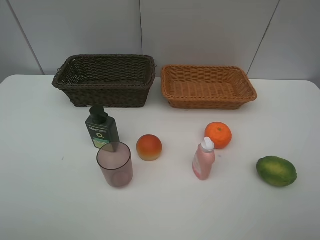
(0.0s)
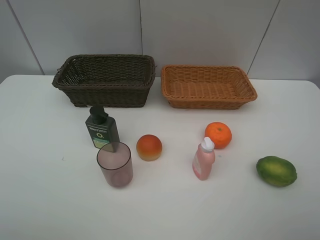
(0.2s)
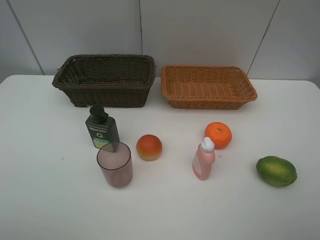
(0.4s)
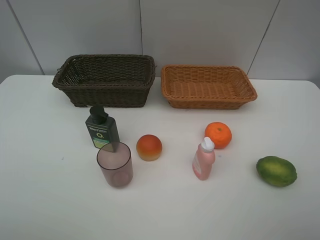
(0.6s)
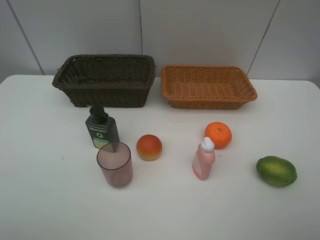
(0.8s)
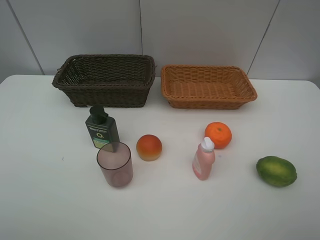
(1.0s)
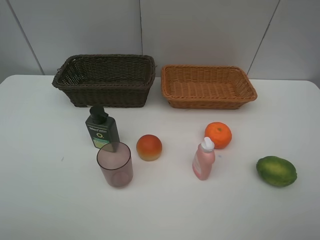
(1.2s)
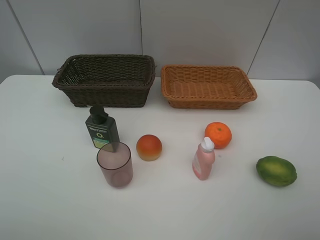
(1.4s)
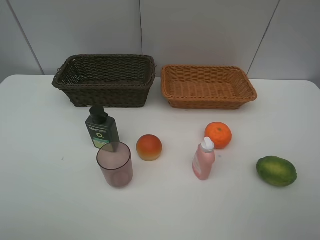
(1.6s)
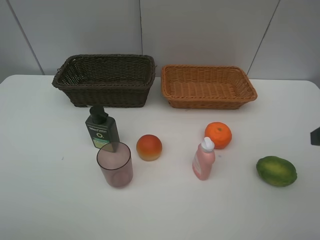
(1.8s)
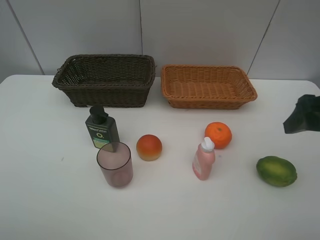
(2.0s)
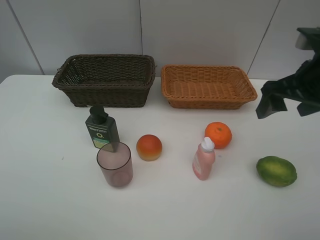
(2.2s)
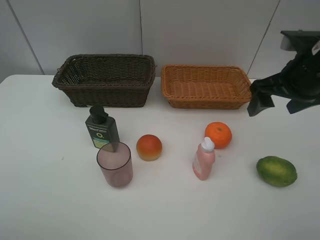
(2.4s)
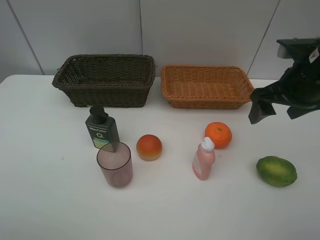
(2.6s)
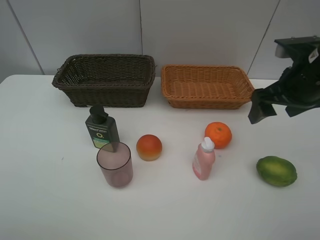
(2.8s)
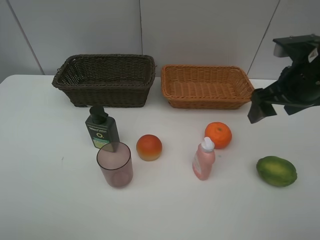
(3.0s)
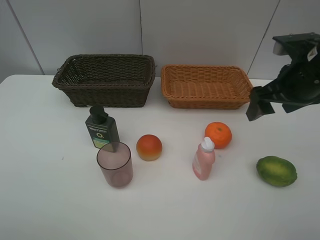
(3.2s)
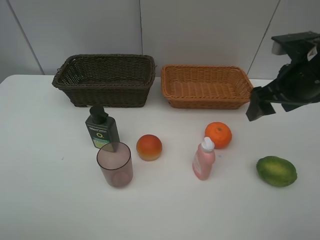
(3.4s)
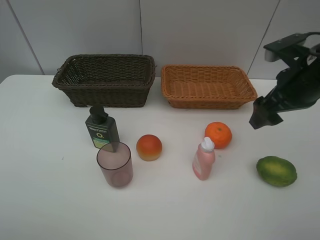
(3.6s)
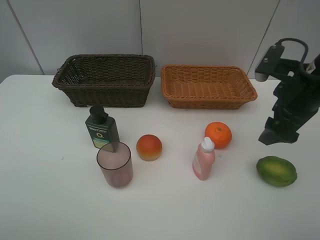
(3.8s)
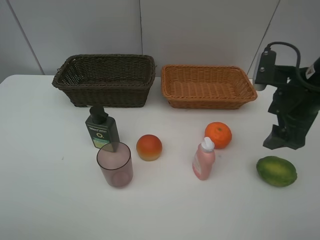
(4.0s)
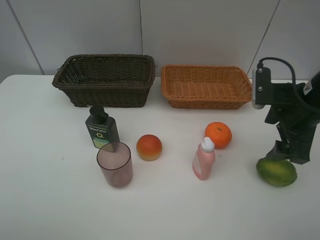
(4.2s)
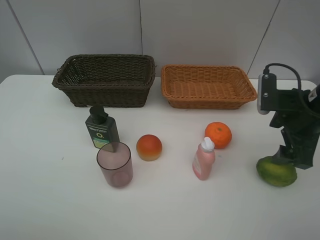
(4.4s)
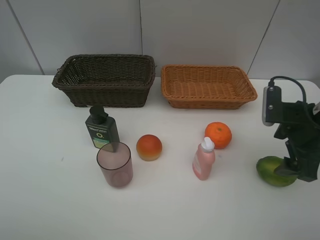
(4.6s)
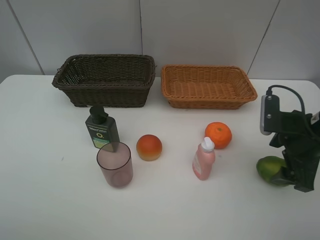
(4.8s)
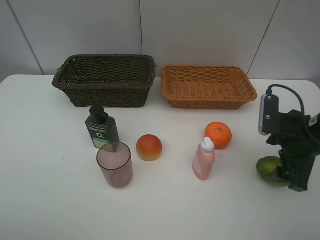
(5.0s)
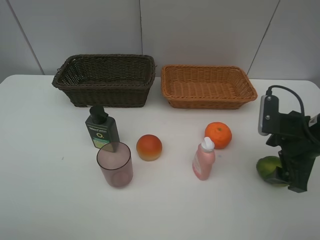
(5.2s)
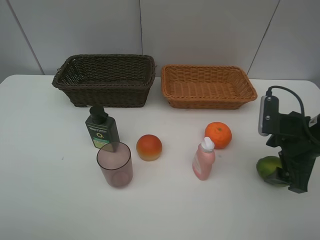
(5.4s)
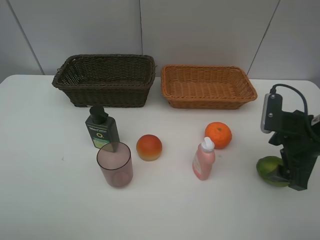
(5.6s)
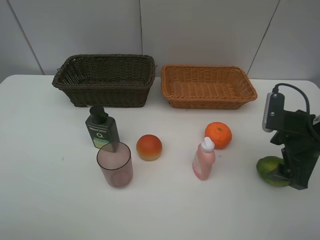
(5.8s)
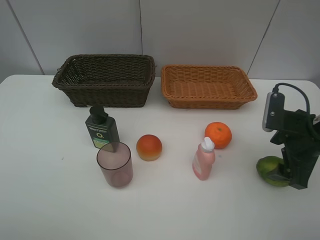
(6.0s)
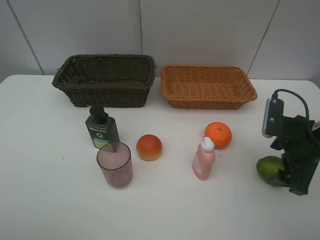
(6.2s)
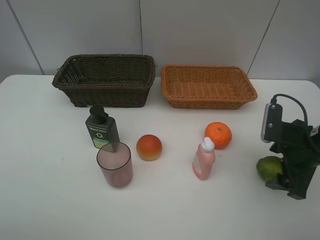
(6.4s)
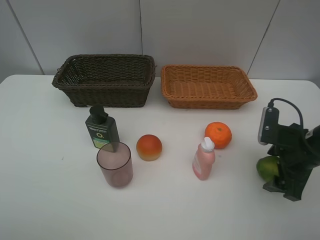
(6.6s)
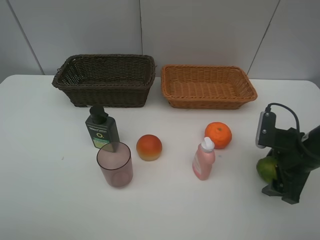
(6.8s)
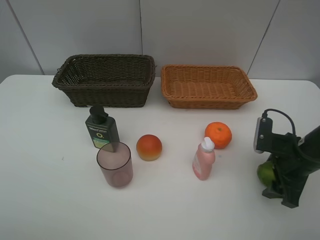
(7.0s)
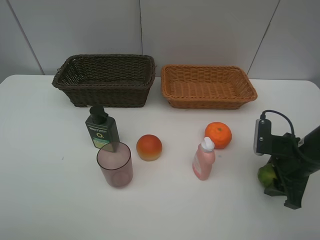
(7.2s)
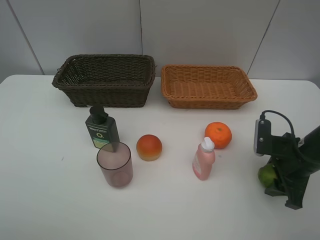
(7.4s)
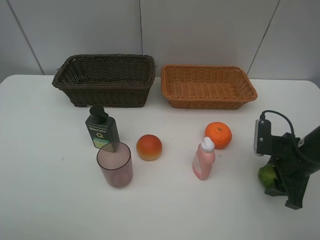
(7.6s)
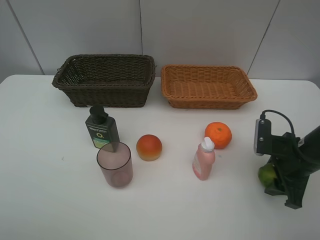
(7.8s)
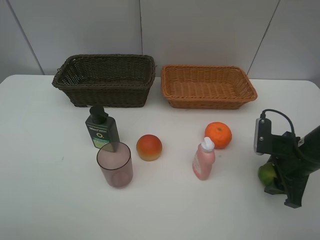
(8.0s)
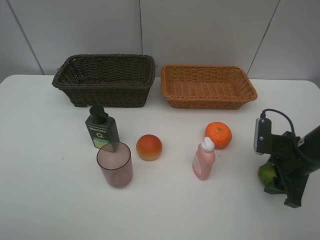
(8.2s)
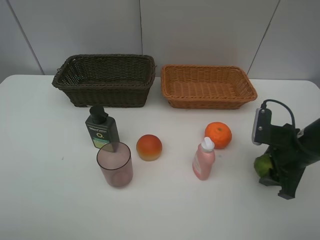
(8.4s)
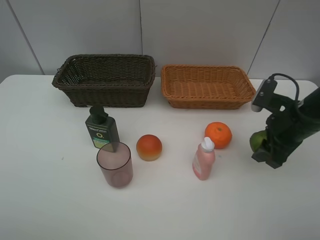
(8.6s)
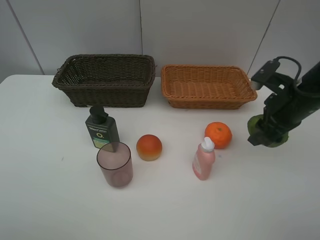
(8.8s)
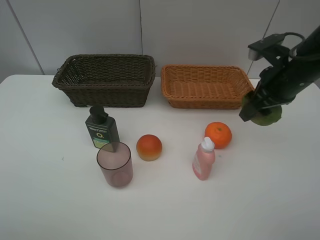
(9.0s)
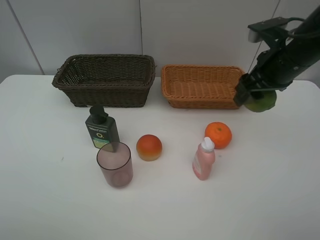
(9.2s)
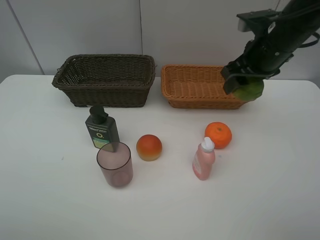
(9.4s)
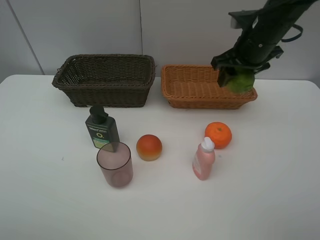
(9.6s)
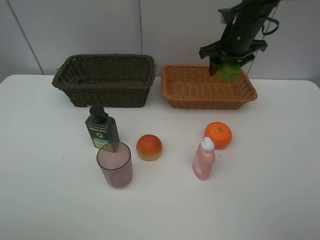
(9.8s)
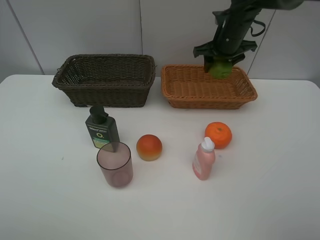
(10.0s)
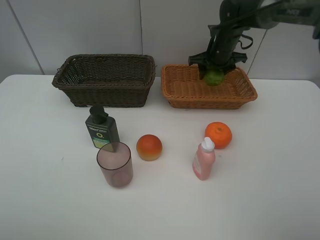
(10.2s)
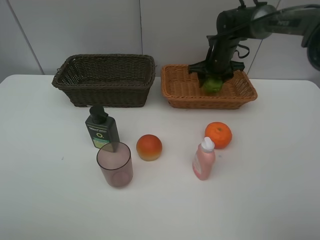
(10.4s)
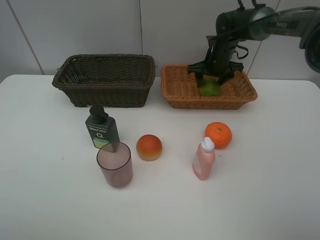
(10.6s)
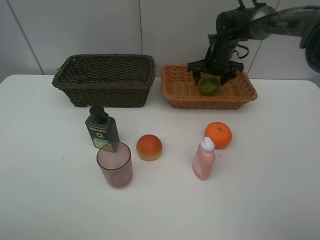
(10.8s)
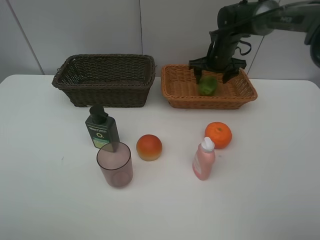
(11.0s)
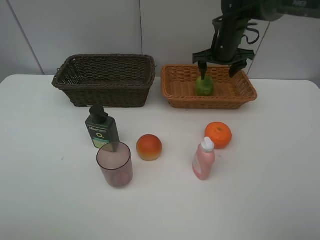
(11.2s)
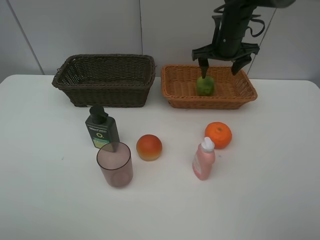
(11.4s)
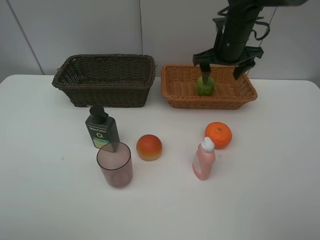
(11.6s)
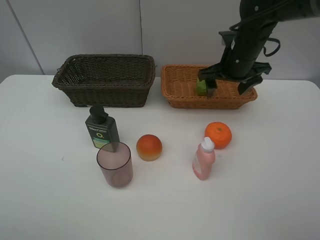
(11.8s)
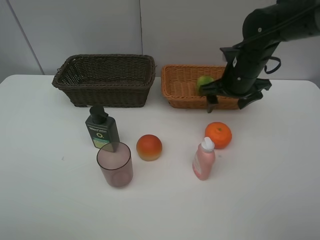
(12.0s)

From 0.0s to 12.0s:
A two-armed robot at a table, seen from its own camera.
Task of the whole recording: place multiple objects separately in different baskets.
From 1.6s to 3.0s: The right gripper heads forward, covering about 20 cm.
From 3.0s to 4.4s: The right gripper is displaced downward by about 5 cm.
From 4.4s to 6.0s: The grippers move only a little.
From 6.0s to 7.6s: The right gripper travels downward by approximately 5 cm, and closes up.
From 7.6s to 9.0s: The right gripper shifts about 15 cm upward and forward.
From 9.0s to 10.4s: The right gripper heads forward and downward, covering some 25 cm.
From 10.4s to 12.0s: The right gripper travels backward by approximately 15 cm, and opens.

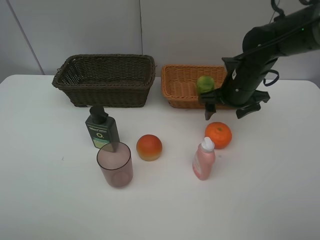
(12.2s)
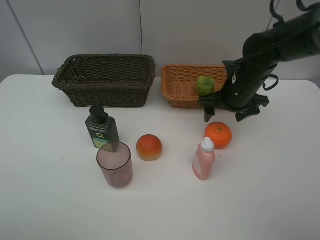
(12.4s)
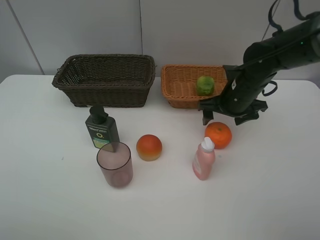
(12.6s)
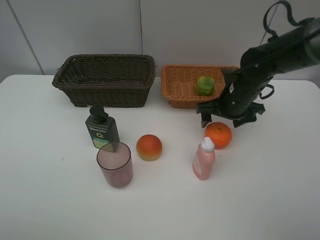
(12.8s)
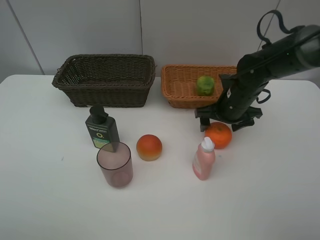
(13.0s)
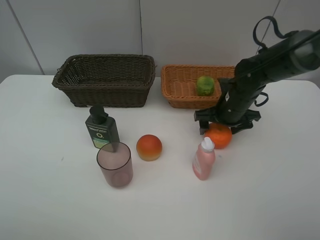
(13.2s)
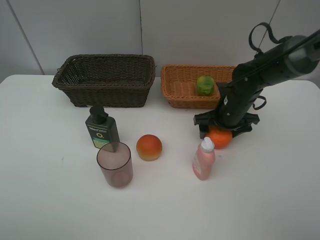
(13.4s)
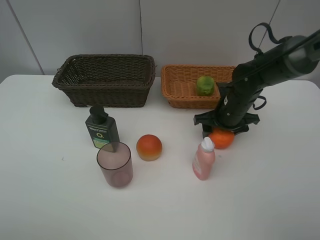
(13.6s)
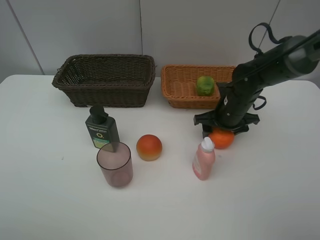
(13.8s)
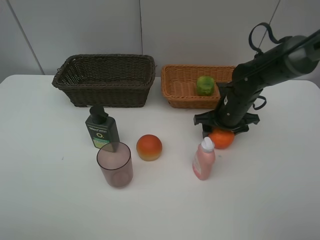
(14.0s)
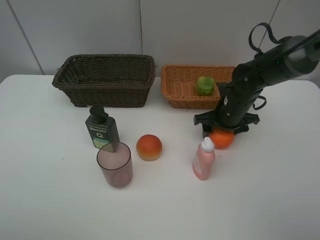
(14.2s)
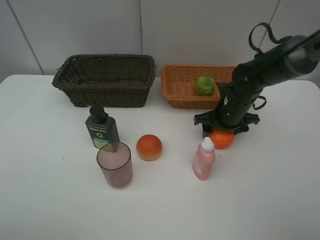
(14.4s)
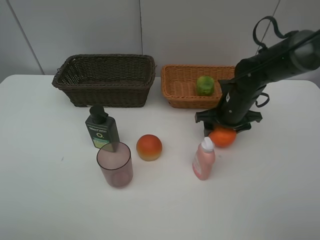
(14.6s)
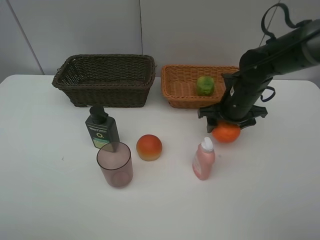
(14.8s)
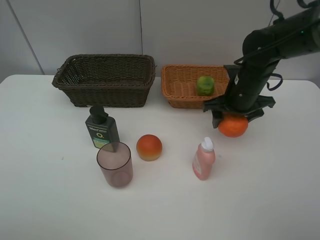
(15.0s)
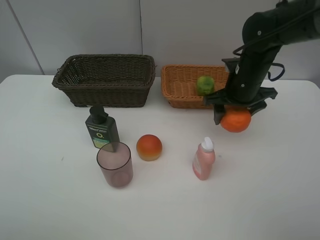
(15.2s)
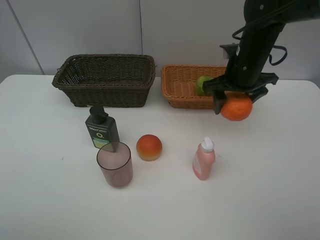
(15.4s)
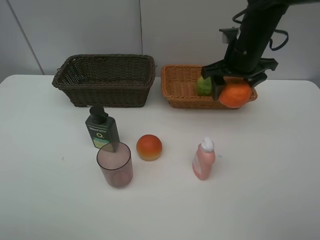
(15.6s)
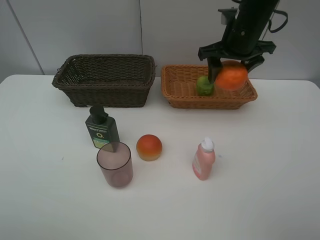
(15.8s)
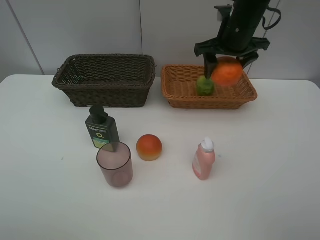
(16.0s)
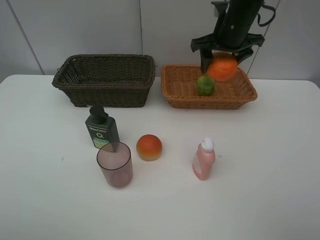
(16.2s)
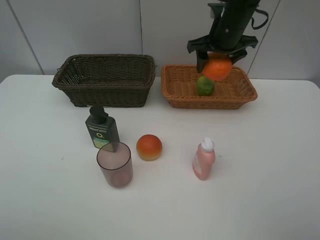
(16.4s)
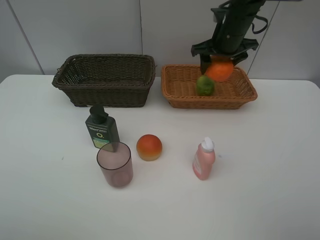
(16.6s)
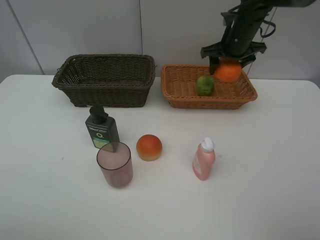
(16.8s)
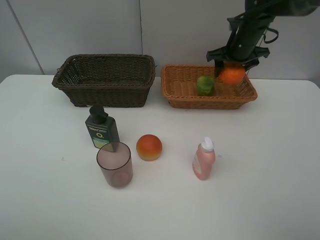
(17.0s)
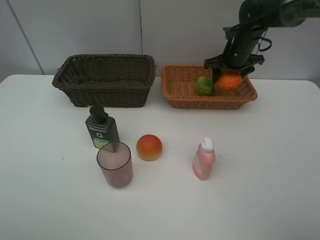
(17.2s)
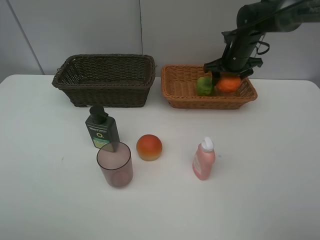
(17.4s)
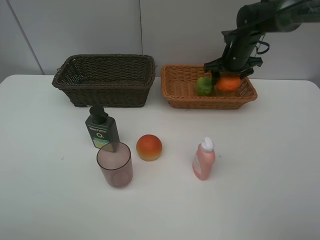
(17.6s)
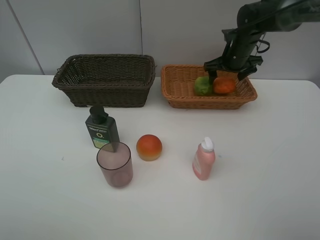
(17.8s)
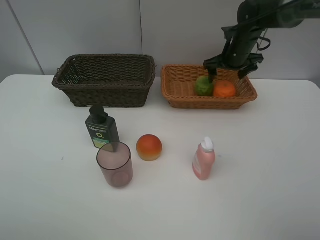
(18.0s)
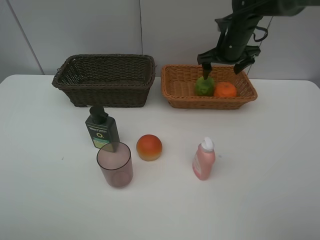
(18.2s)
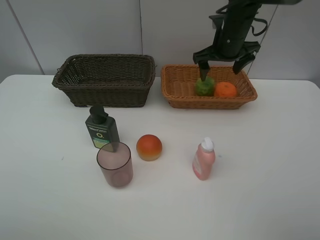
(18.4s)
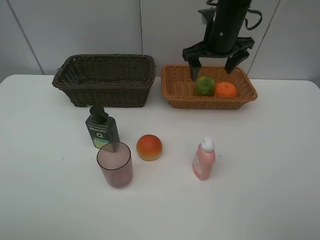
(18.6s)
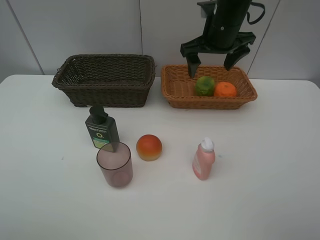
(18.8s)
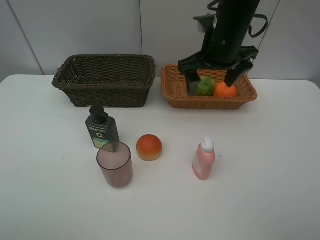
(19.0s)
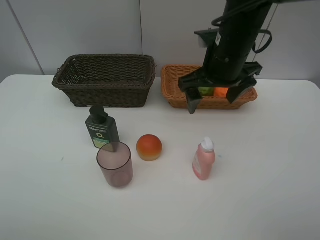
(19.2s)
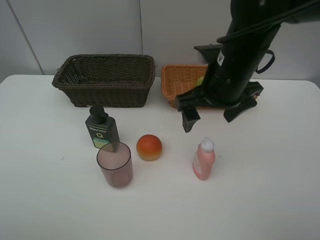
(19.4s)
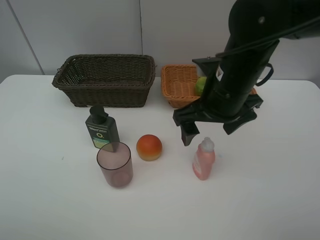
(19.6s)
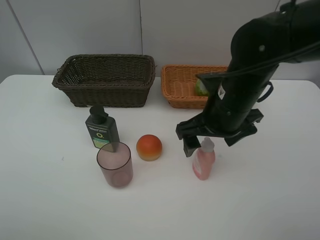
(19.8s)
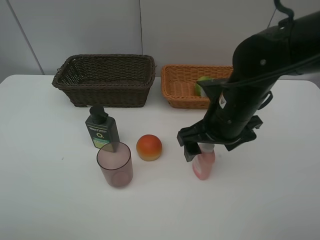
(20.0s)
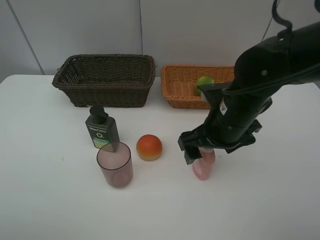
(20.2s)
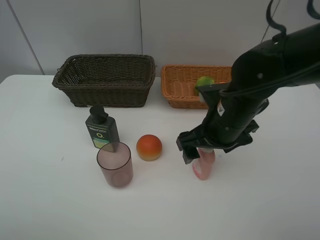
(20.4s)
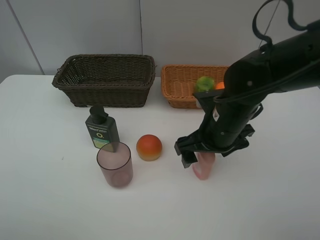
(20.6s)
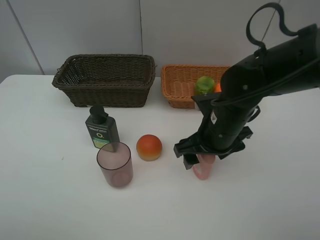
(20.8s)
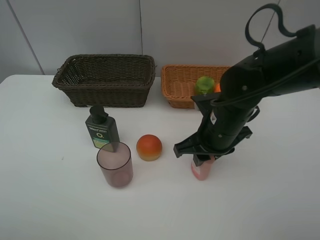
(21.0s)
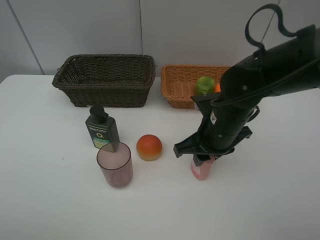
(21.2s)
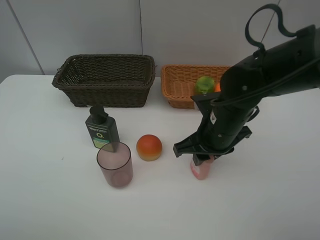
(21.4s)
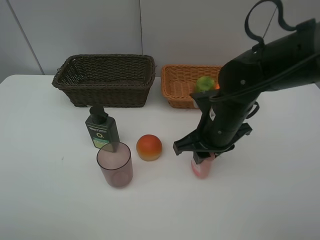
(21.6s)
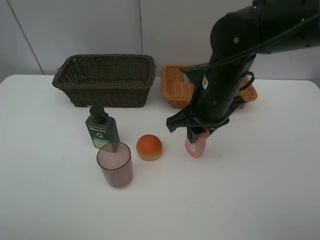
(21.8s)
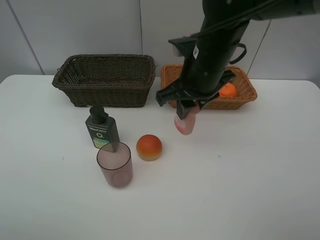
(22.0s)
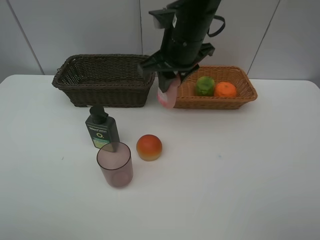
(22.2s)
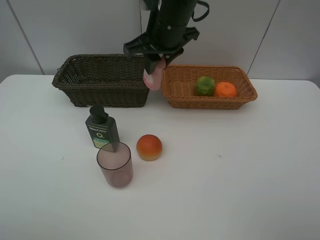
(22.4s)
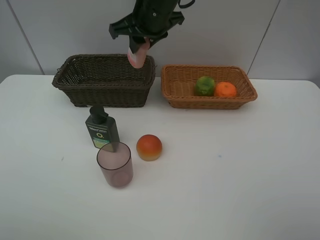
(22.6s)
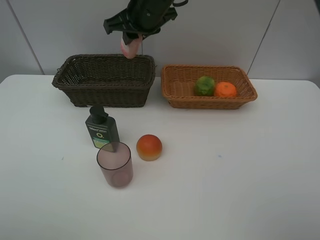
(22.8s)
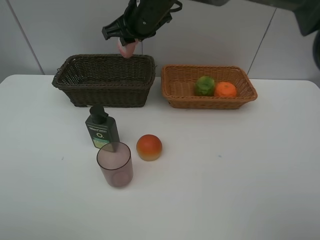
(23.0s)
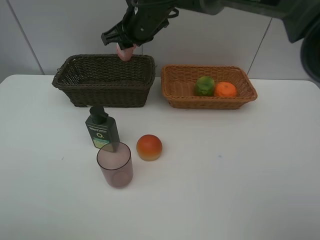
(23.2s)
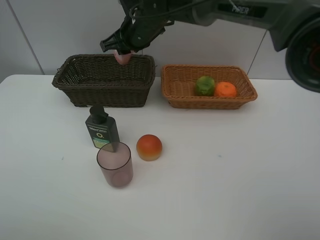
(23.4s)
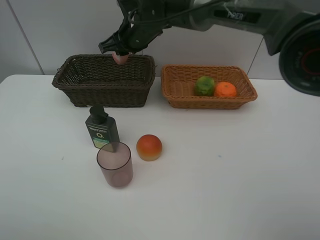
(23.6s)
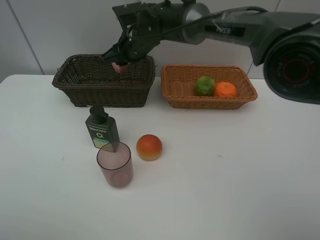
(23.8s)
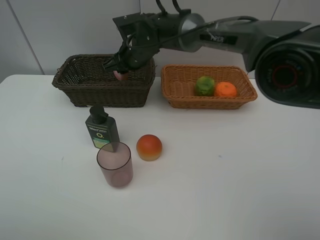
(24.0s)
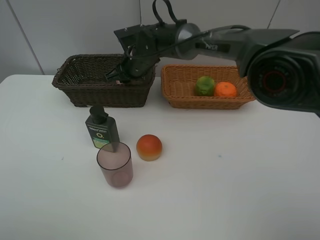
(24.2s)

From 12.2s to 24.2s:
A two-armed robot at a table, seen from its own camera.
Task of the whole recording: place multiple objects separately in different baskets.
From 12.2s to 13.8s: The right gripper moves downward, some 5 cm.
From 13.8s to 15.2s: The right gripper is displaced upward by roughly 10 cm.
From 15.2s to 16.6s: The right gripper shifts approximately 10 cm forward and upward.
From 16.6s to 18.2s: The right gripper opens its fingers.
From 18.2s to 19.8s: The right gripper goes some 20 cm backward.
From 19.8s to 21.2s: The right gripper closes.
From 21.2s to 22.6s: The right gripper is displaced forward, upward and to the left by about 25 cm.
From 22.6s to 24.2s: The right gripper is displaced downward by about 15 cm.
